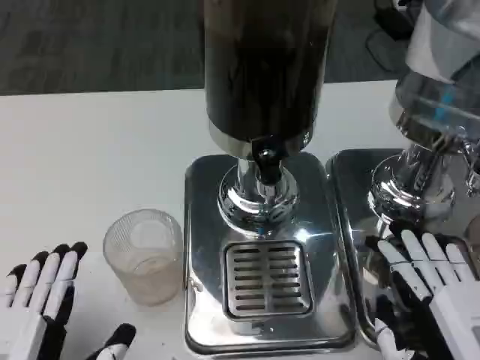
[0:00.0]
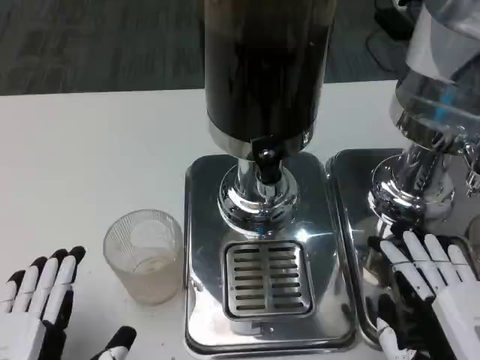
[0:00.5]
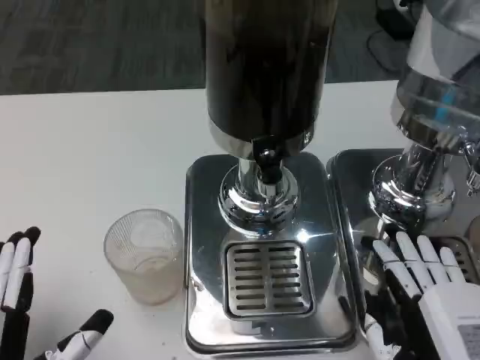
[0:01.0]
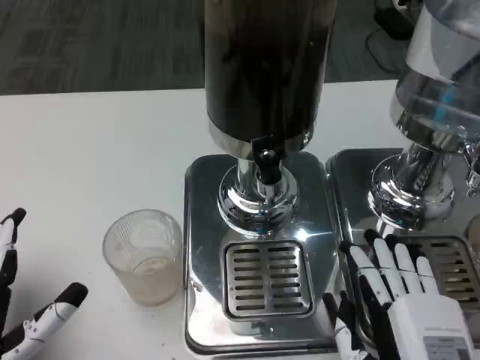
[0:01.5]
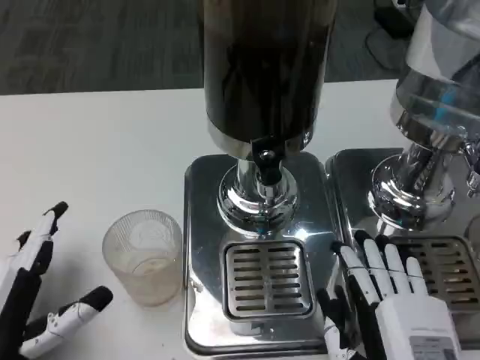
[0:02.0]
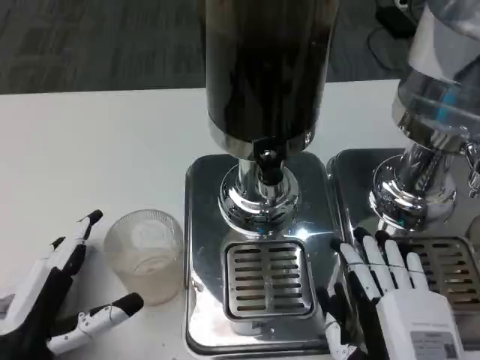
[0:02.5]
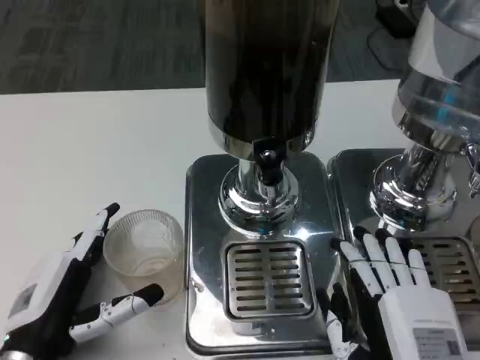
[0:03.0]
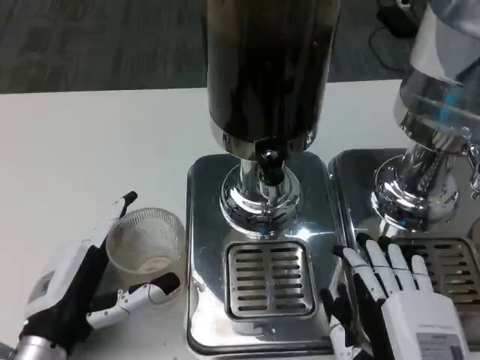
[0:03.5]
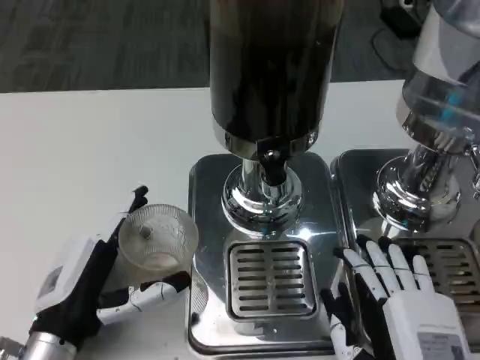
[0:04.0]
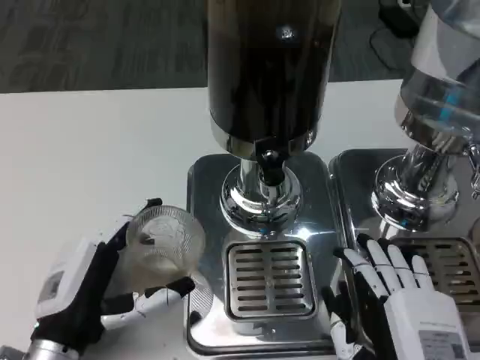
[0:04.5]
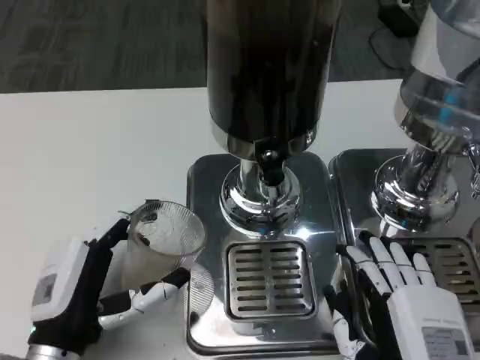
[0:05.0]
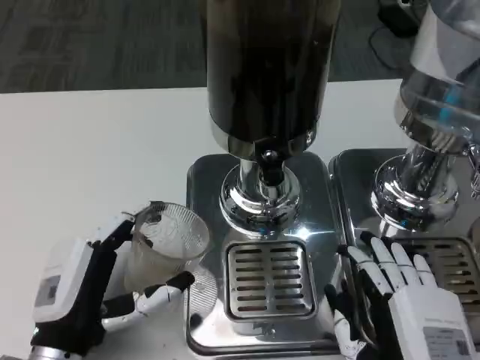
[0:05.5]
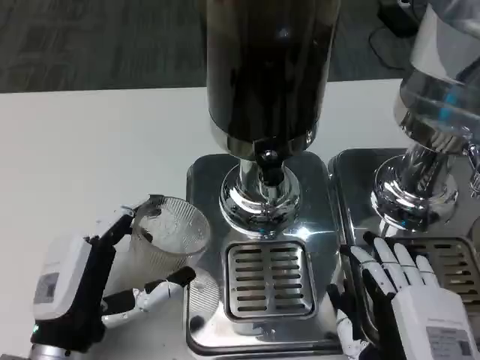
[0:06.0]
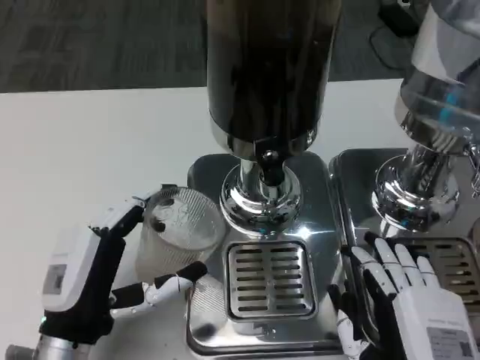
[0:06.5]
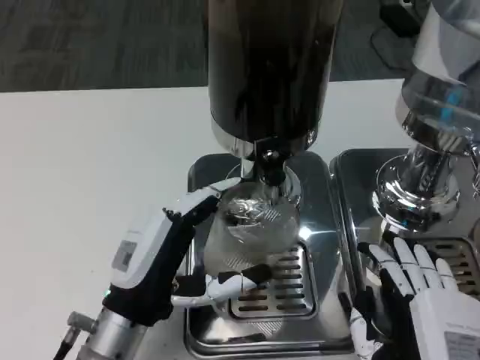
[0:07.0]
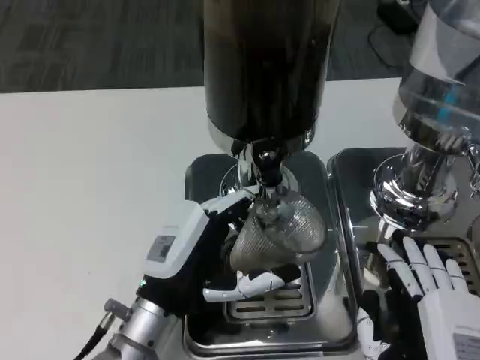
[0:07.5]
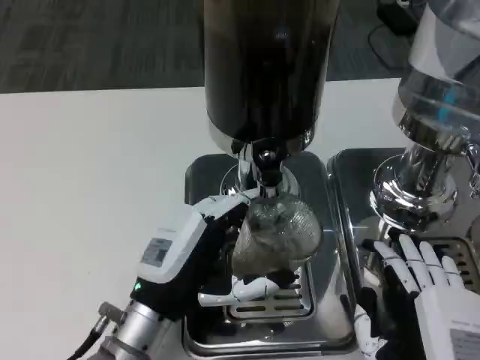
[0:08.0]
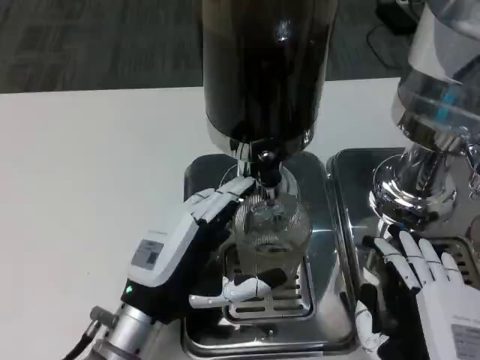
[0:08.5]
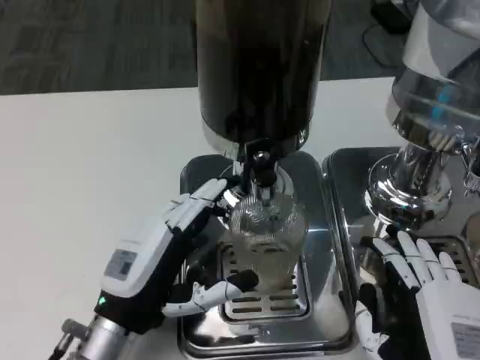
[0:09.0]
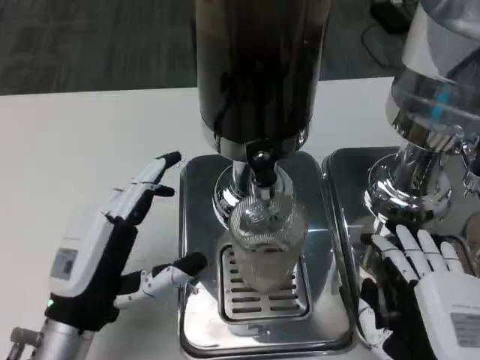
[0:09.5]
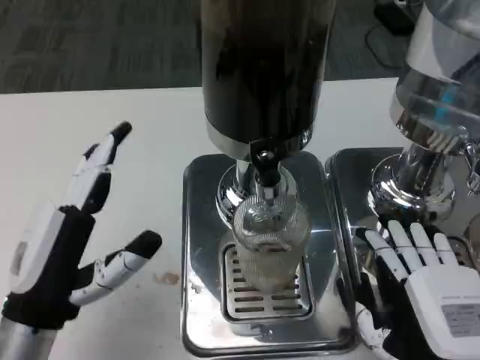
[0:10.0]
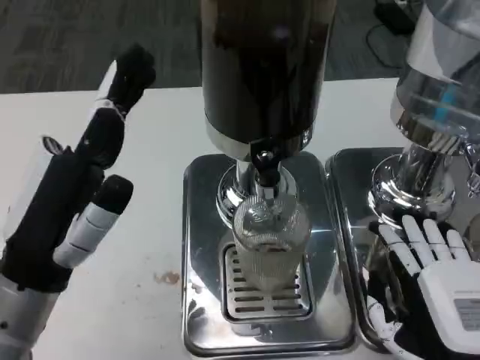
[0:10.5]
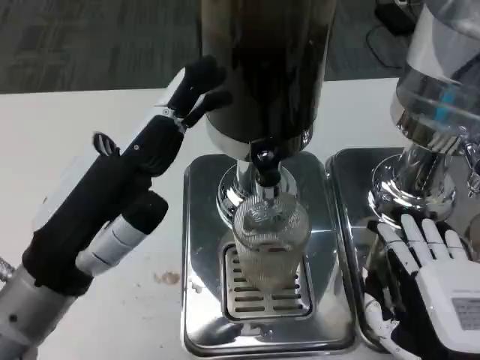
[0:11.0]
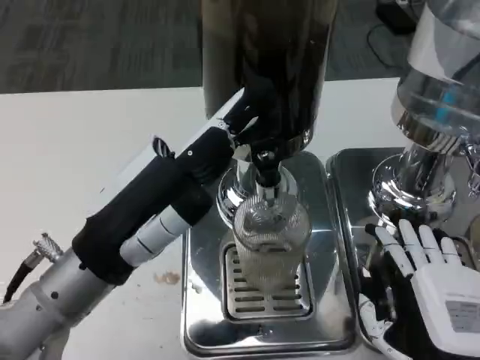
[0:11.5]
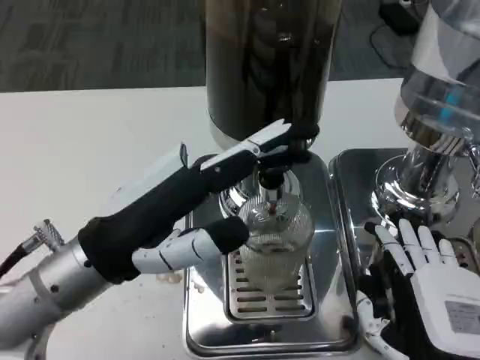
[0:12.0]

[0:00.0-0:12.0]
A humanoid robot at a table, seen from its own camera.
Task of the whole recording: Grasp the cup under the faucet to collect the drink, then remove the cup.
0.0 to 2.0 s: The right hand is displaced to the left by approximately 5 cm; the left hand is displaced forward and to the left by some 10 cm.
2.0 to 4.0 s: The left hand shifts by roughly 5 cm.
4.0 to 6.0 s: There are only small adjustments of the hands.
6.0 to 8.0 s: The left hand is displaced to the right by roughly 5 cm.
8.0 to 10.0 s: The left hand moves to the left, about 10 cm.
10.0 to 12.0 s: The left hand heads upward, covering some 10 cm.

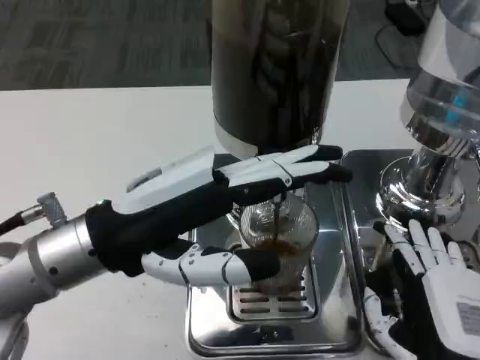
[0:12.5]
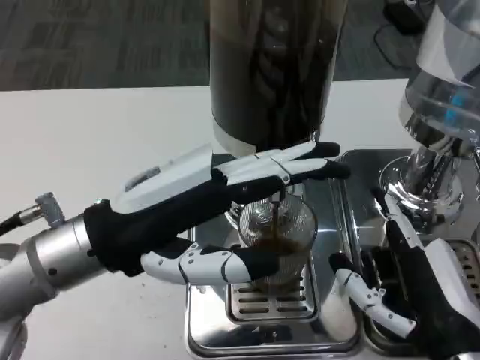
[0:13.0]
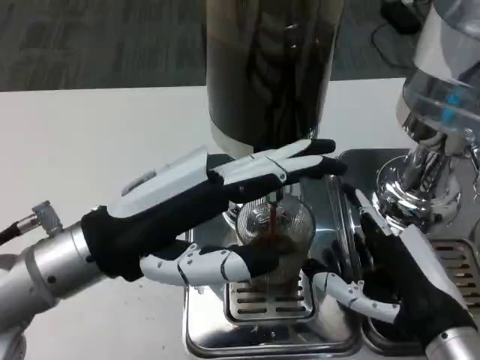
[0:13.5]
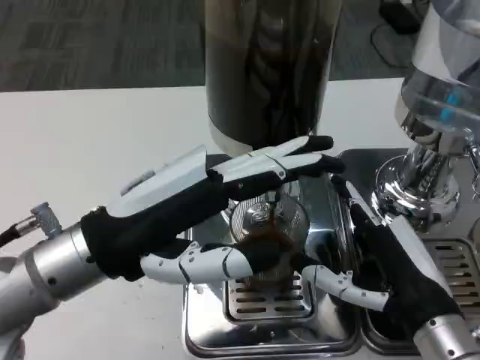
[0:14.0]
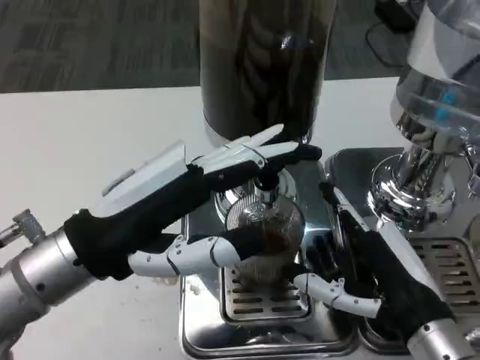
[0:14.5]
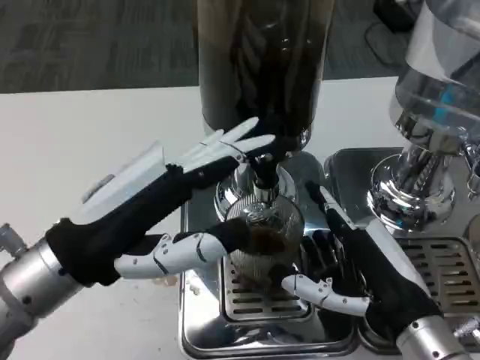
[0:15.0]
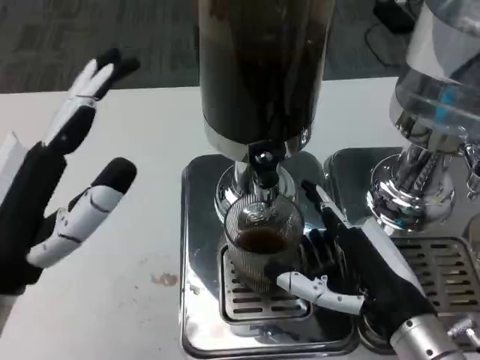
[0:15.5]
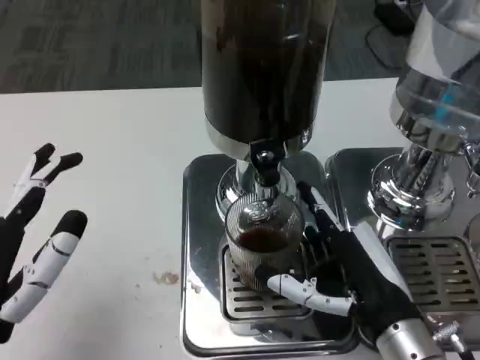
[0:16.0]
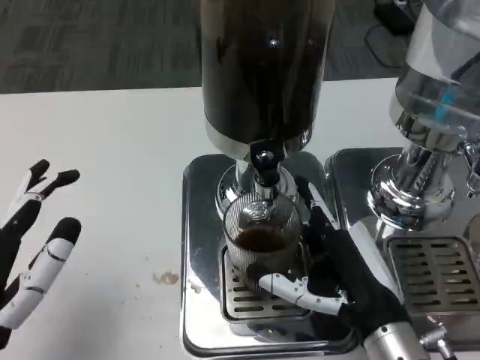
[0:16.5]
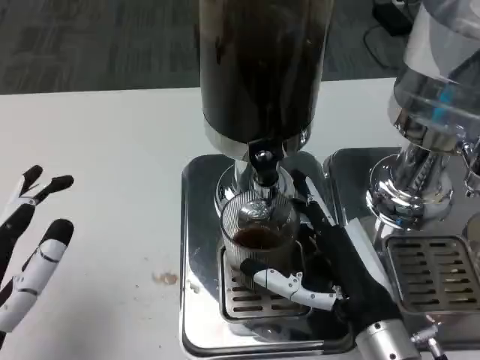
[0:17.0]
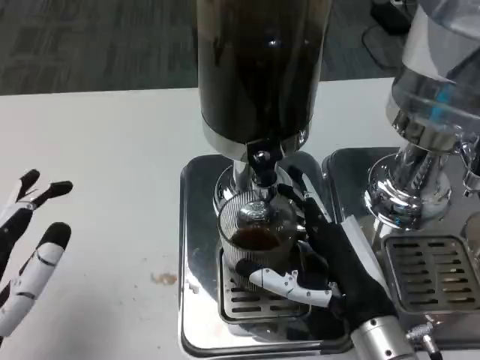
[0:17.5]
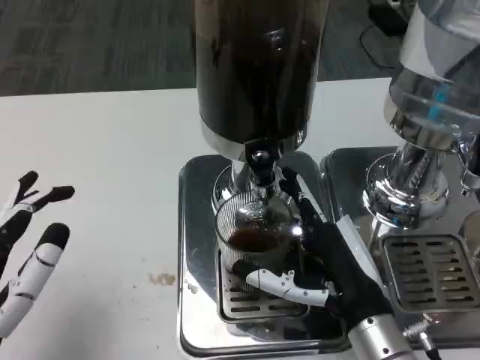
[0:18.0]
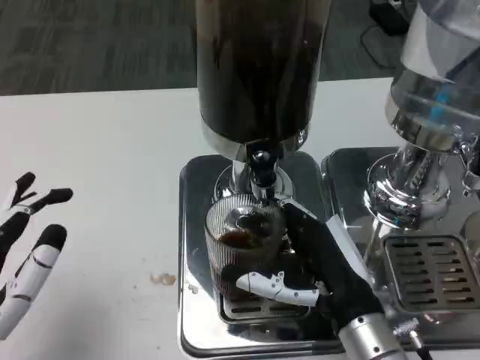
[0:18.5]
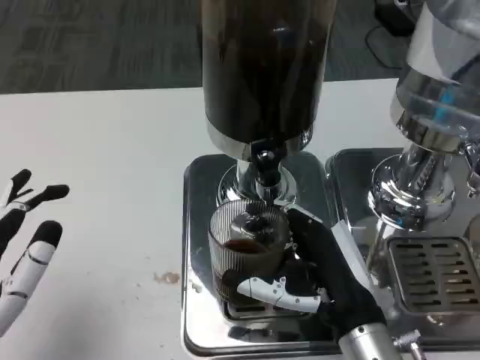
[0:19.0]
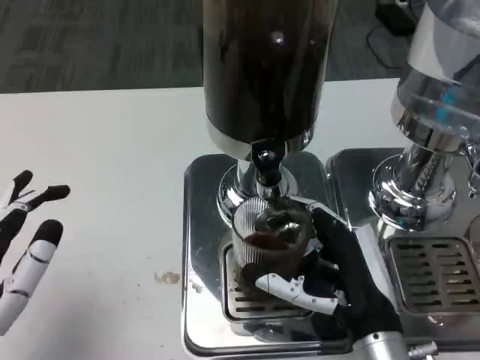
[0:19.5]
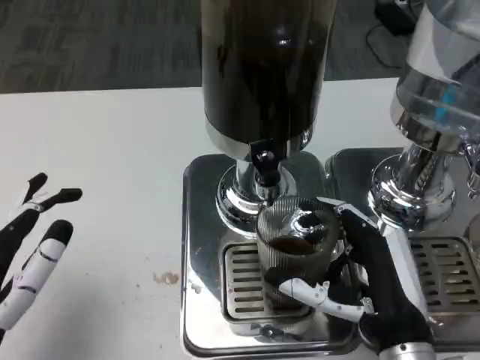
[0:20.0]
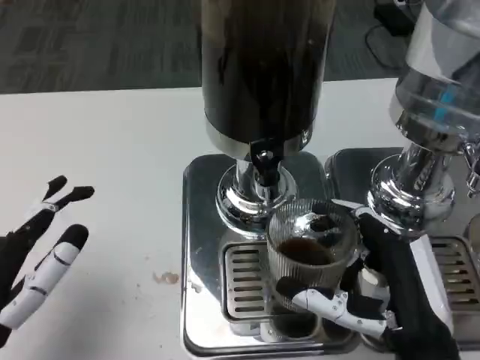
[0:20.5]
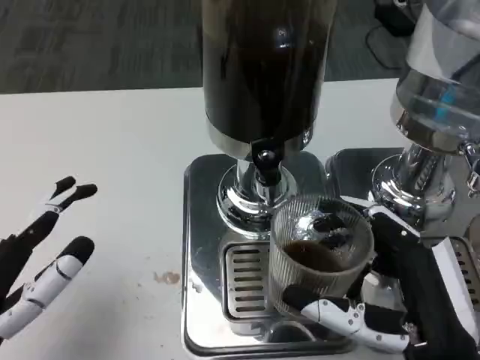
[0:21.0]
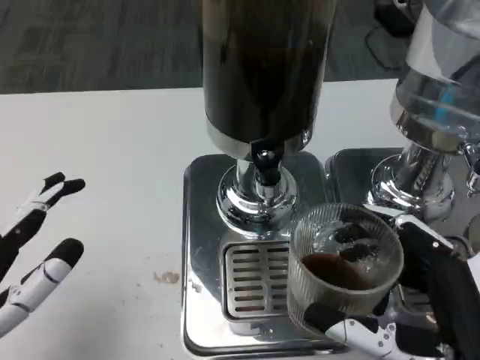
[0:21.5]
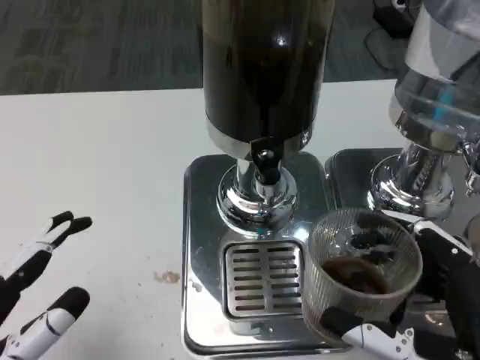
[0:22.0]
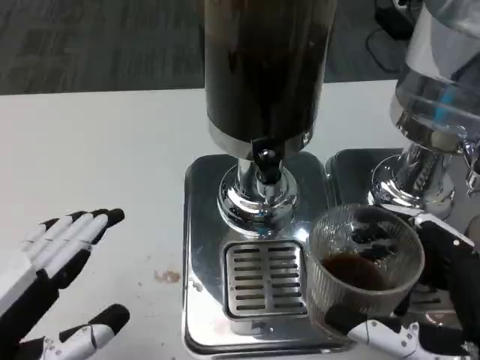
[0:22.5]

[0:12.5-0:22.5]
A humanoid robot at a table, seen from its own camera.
Task of the whole recording: Grasp the cup under the faucet to collect the drink, then remove the cup.
12.5 to 14.5 s: The right hand is displaced forward by approximately 5 cm.
14.5 to 16.5 s: The left hand is displaced backward, downward and to the left by some 15 cm.
18.5 to 20.5 s: The right hand travels backward by approximately 5 cm.
20.5 to 22.5 s: Both hands travel together upward, roughly 5 cm.

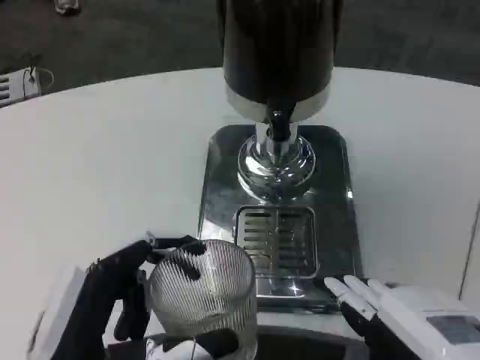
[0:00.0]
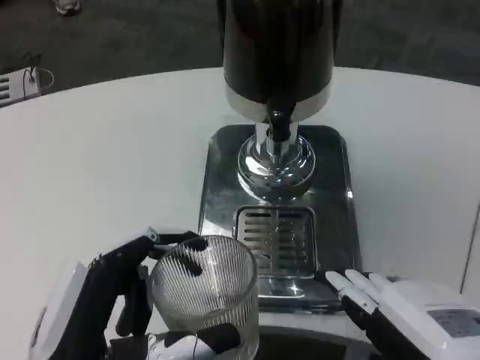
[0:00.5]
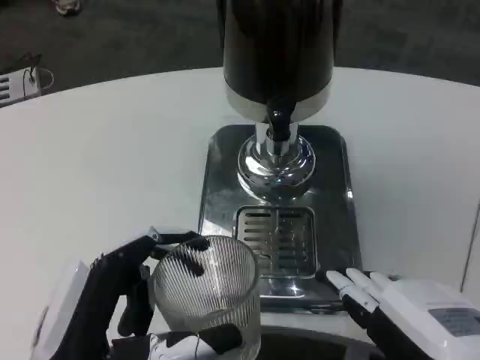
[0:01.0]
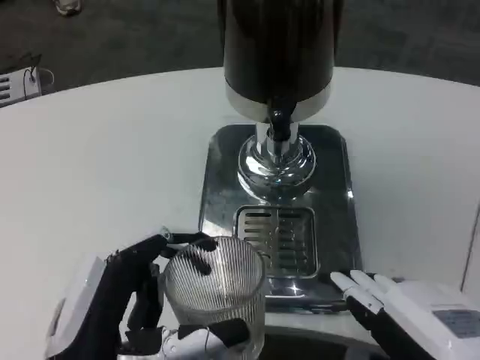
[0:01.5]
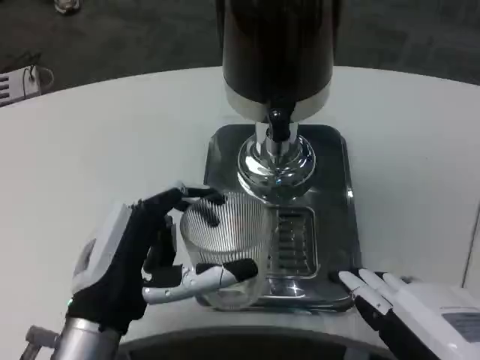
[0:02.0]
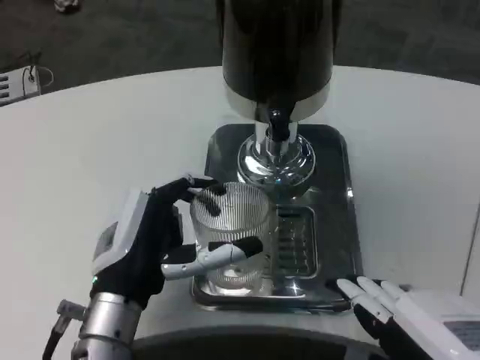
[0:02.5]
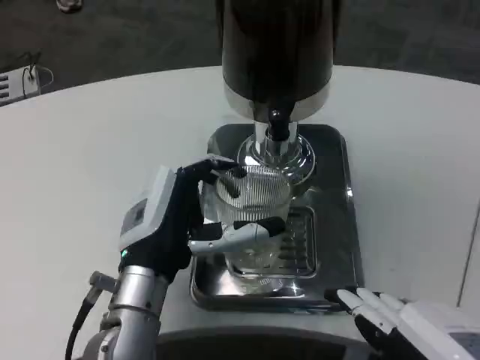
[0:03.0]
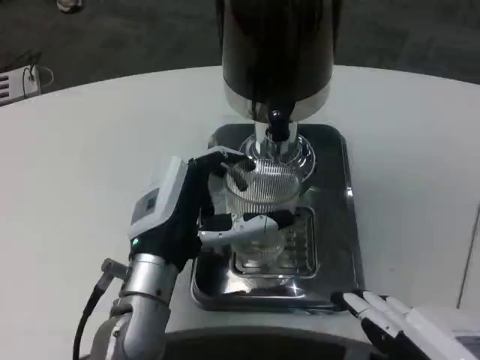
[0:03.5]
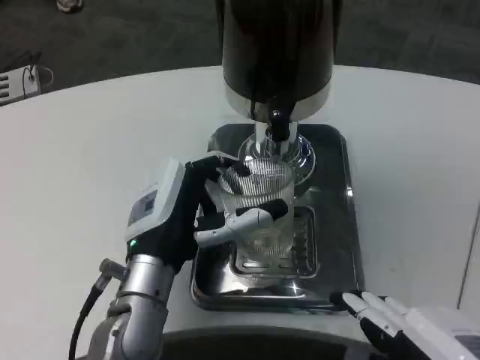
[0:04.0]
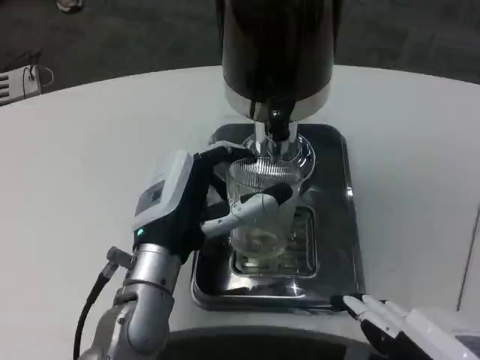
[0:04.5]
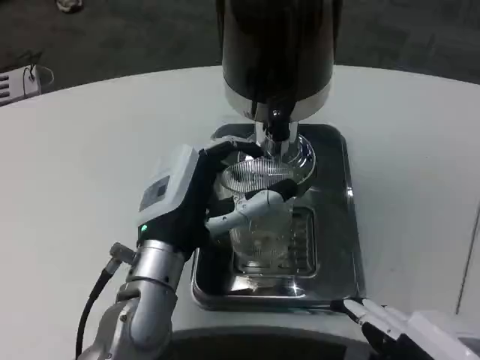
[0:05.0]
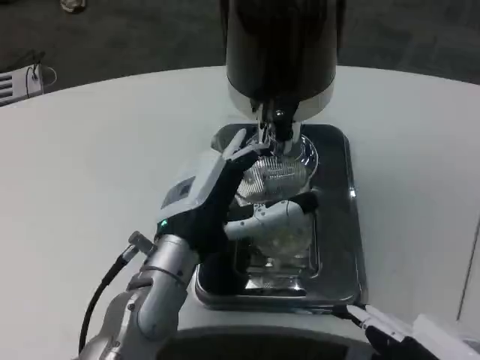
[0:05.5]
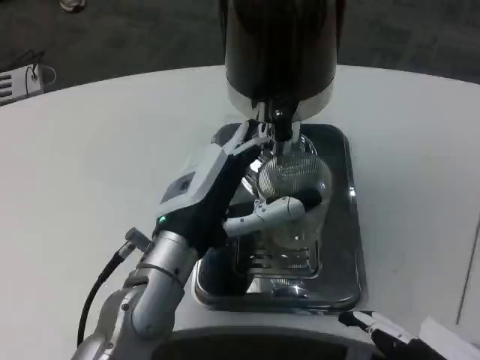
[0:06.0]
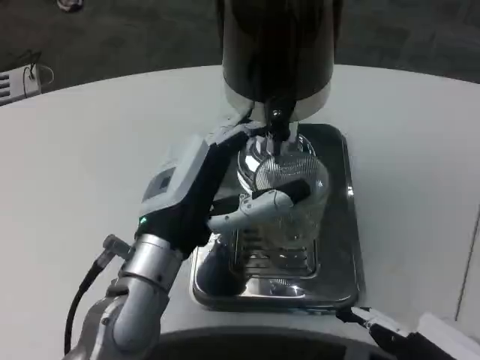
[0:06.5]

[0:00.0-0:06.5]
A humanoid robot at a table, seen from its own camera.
Task of the whole recording: Grasp the cup under the faucet to collect the drink, then remove the cup.
0.0 to 2.0 s: The left hand moves forward, approximately 10 cm.
2.0 to 4.5 s: The left hand goes roughly 5 cm forward.
4.5 to 6.5 s: The hands make only small movements.
